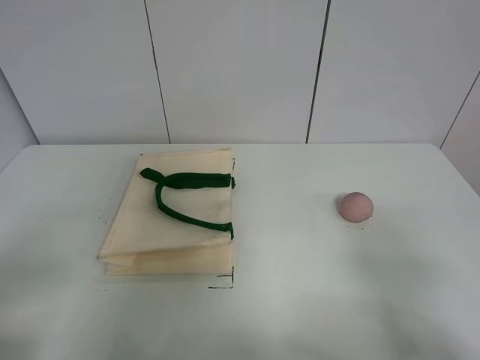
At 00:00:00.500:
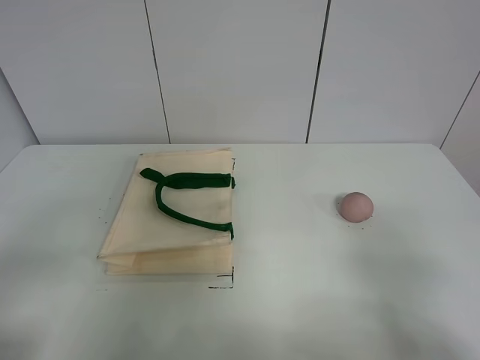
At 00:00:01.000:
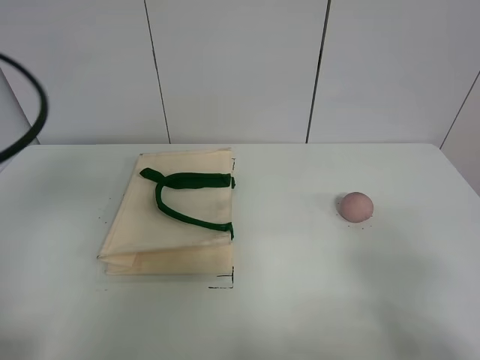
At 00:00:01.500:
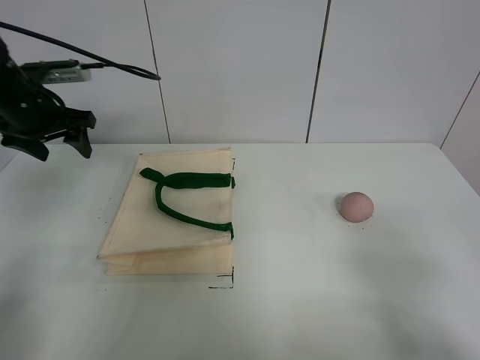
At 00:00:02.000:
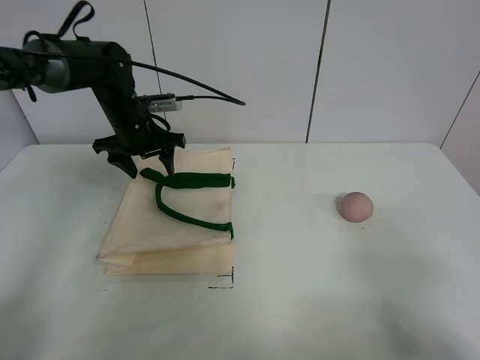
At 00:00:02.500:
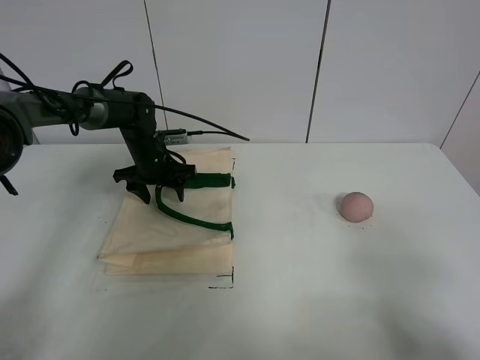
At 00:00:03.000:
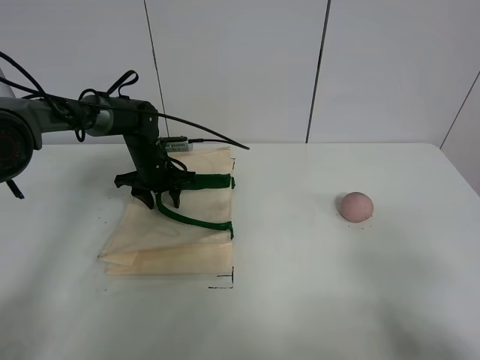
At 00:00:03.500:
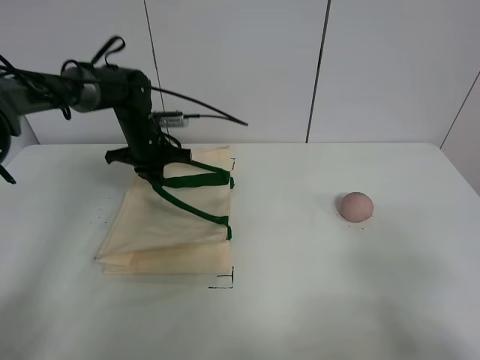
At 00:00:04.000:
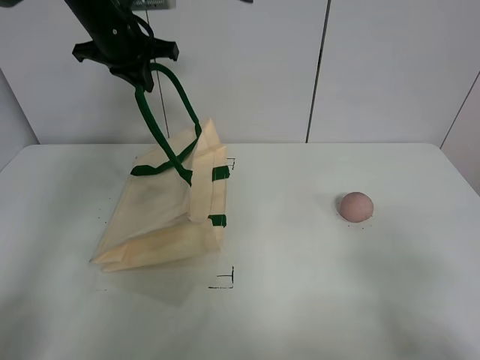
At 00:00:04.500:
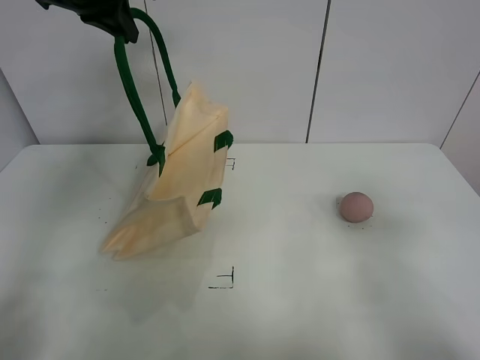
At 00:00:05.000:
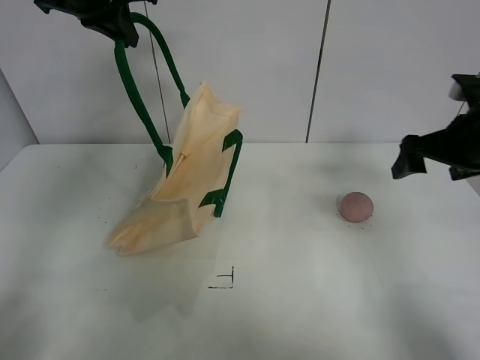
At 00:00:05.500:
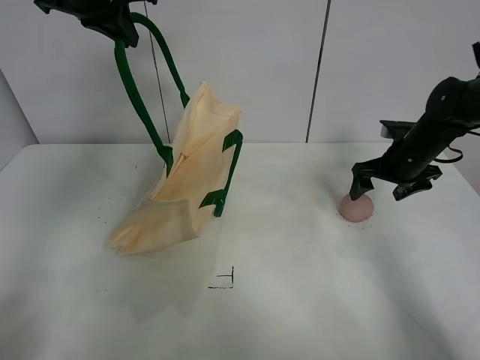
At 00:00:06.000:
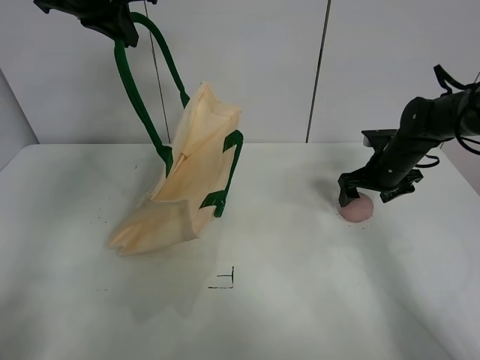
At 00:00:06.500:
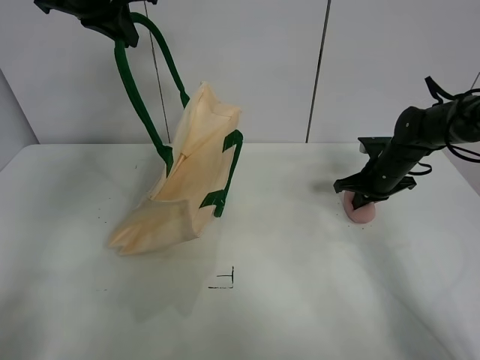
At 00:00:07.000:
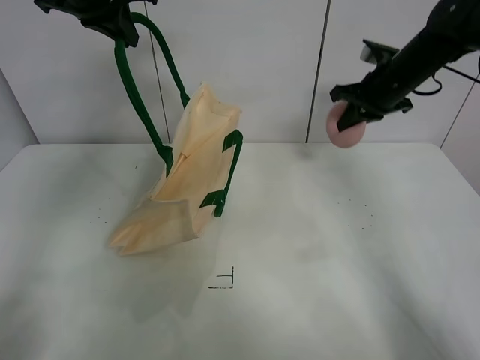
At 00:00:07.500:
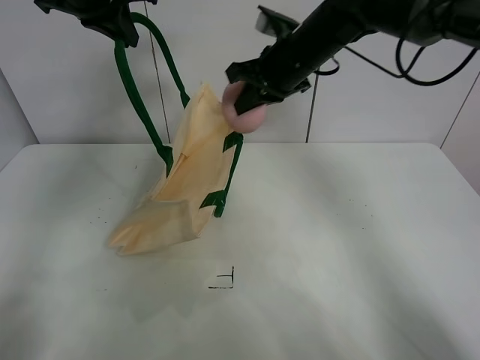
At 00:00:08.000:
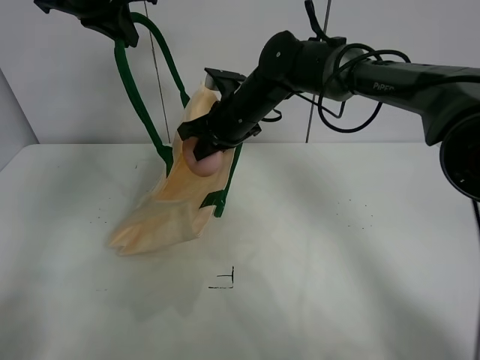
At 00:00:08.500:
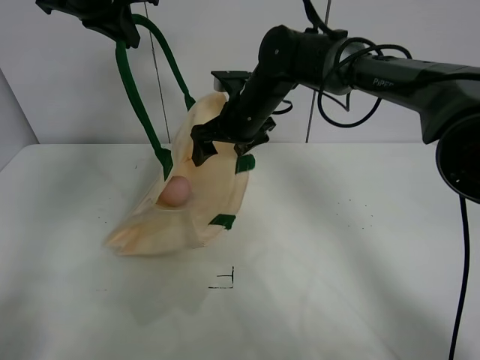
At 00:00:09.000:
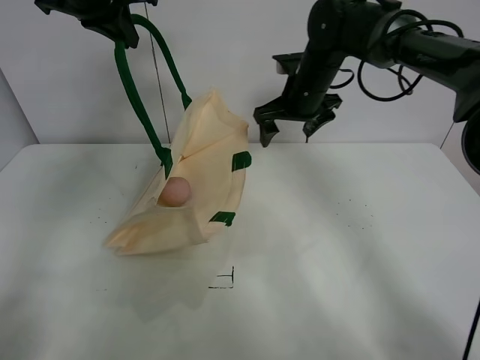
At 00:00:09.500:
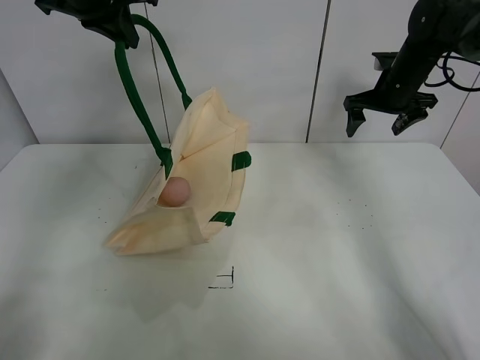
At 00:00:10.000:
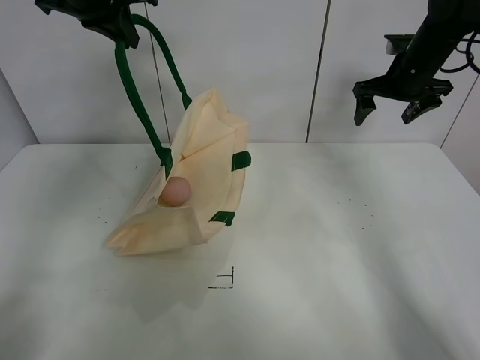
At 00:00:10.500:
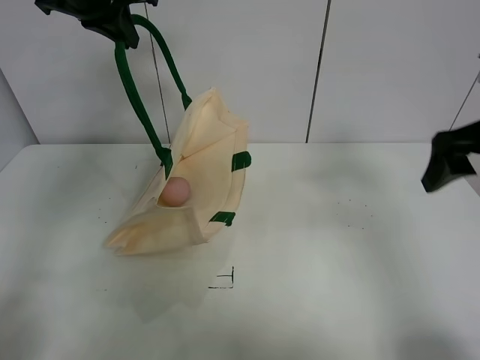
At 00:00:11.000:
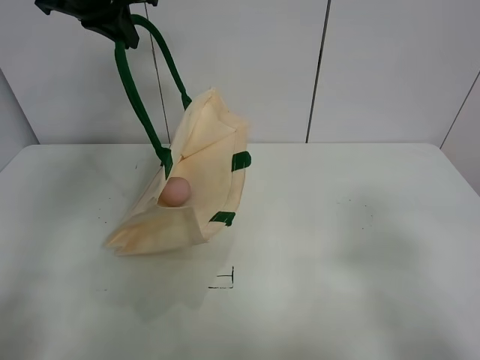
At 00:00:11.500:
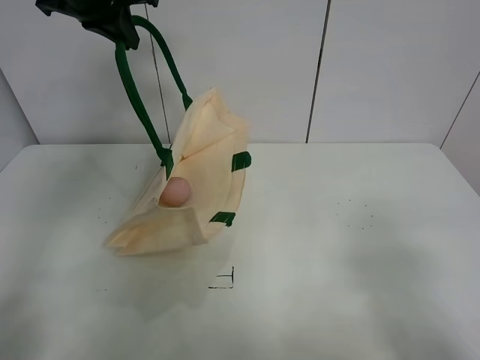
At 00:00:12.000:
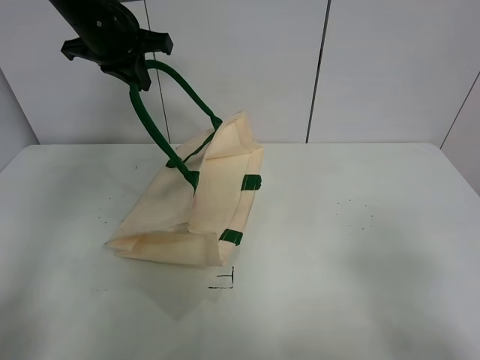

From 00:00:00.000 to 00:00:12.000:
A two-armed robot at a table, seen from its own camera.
Task of the whole recording: open the white linen bag and put the peach in the bag.
Step, from 00:00:00.000 to 00:00:04.500: Lift the handbag with left gripper.
Step, from 00:00:05.000 to 00:00:06.500: Grasp the peach with right gripper.
Step, from 00:00:07.000 to 00:00:08.500: Place the peach in the handbag with right gripper.
From 00:00:00.000 to 00:00:02.000: The left gripper goes roughly 40 cm forward.
From 00:00:02.000 to 00:00:04.000: The left gripper goes about 15 cm upward, and closes.
From 00:00:04.000 to 00:00:06.000: The left gripper is displaced upward by about 5 cm; the right gripper moves forward, about 40 cm.
From 00:00:06.000 to 00:00:08.000: The right gripper heads to the left, covering approximately 25 cm, and closes.
From 00:00:08.000 to 00:00:10.000: The right gripper is displaced to the right by about 25 cm, and opens its fingers.
From 00:00:10.000 to 00:00:12.000: The left gripper goes about 5 cm downward, while the right gripper heads backward, covering some 50 cm.

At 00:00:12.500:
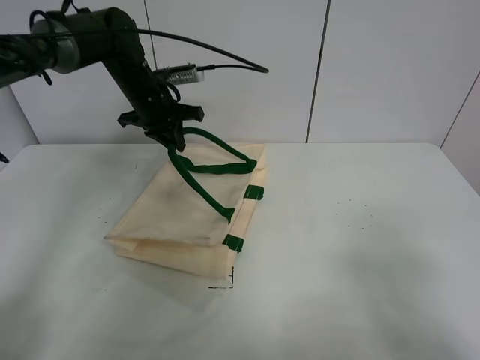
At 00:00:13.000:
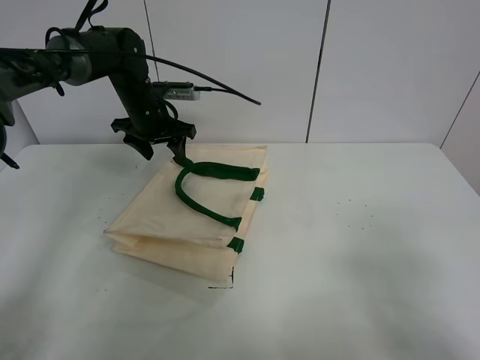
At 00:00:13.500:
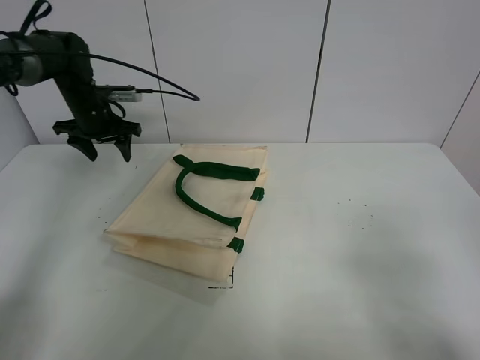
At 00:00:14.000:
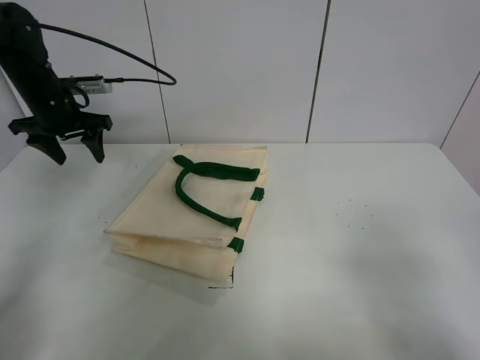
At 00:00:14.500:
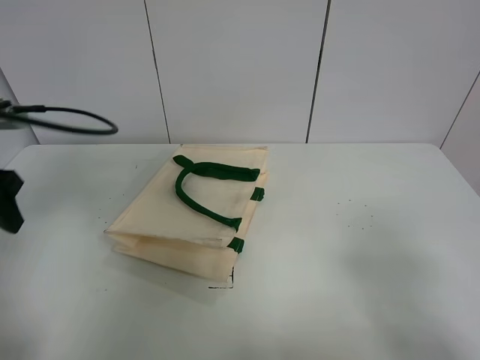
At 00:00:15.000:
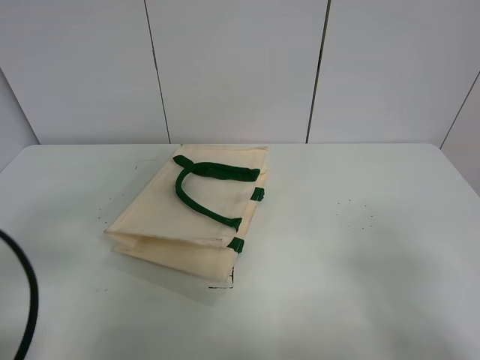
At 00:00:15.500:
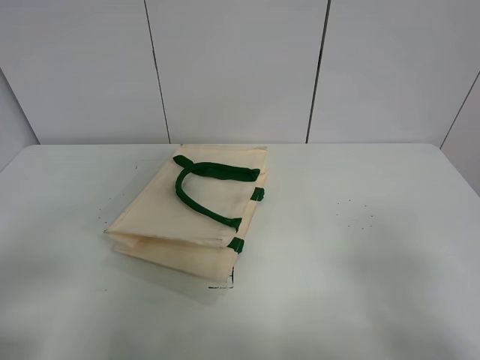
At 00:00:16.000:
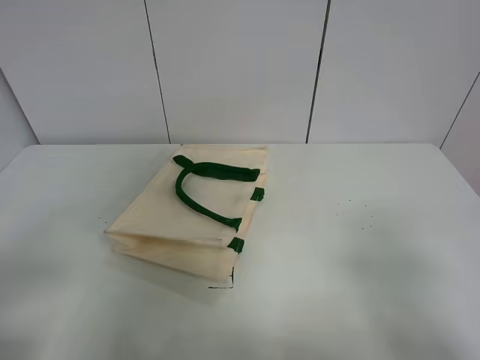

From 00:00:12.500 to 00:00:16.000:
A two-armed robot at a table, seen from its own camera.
Task of the whole recording: open the white linen bag and put the peach in the bag.
From 00:00:12.500 to 00:00:14.500: The left gripper moves backward and to the left, about 30 cm, and opens up.
From 00:00:14.500 to 00:00:16.000: The left gripper goes some 20 cm backward.
